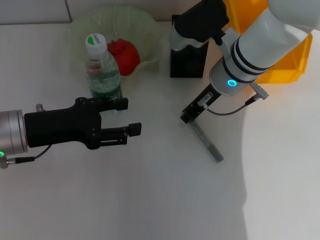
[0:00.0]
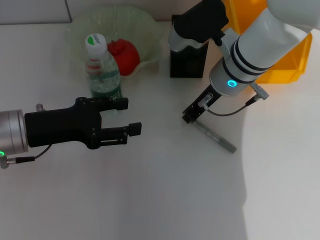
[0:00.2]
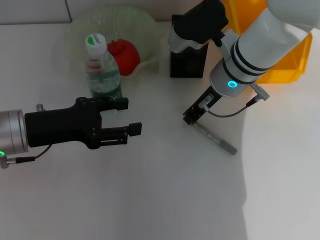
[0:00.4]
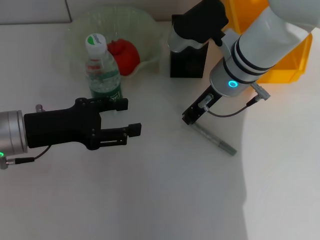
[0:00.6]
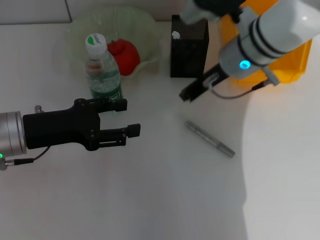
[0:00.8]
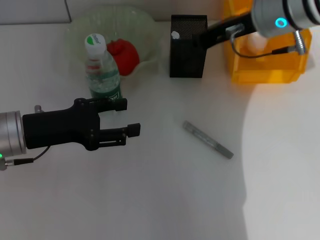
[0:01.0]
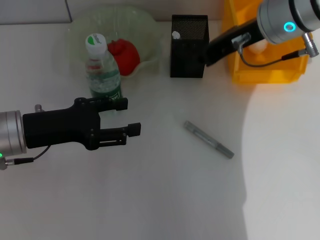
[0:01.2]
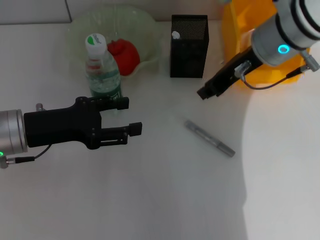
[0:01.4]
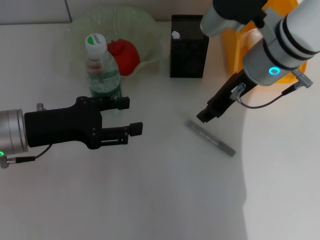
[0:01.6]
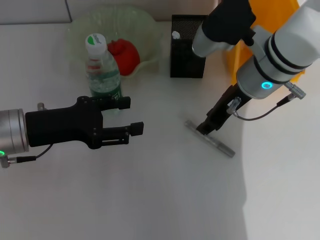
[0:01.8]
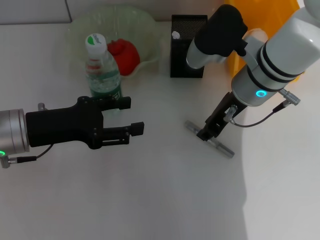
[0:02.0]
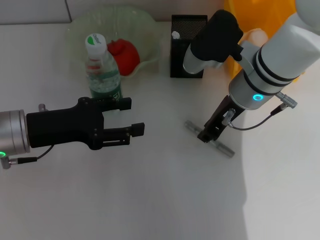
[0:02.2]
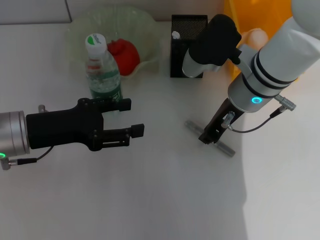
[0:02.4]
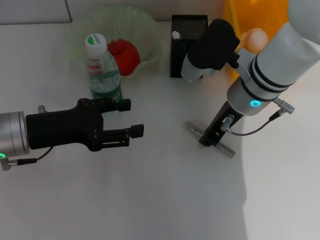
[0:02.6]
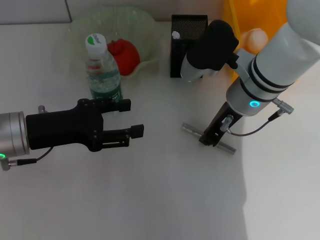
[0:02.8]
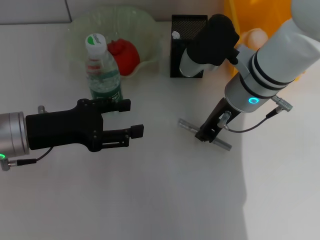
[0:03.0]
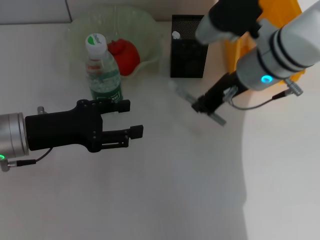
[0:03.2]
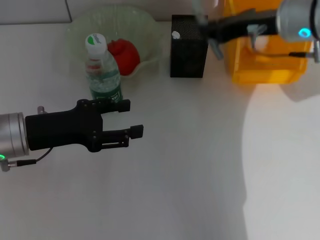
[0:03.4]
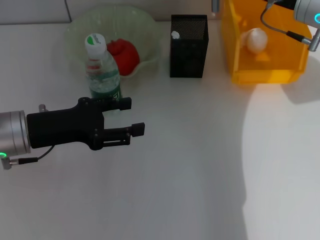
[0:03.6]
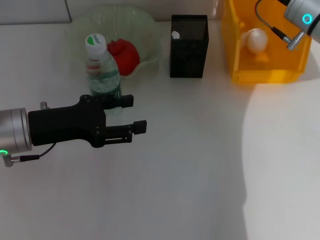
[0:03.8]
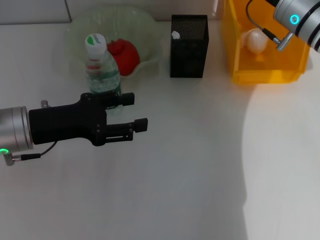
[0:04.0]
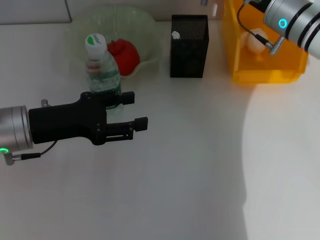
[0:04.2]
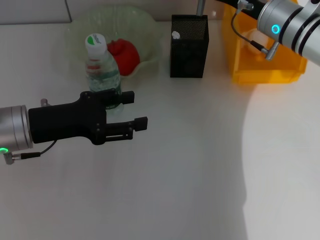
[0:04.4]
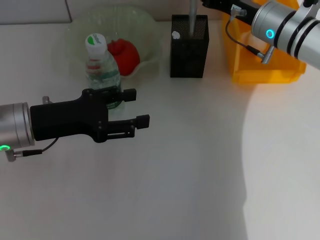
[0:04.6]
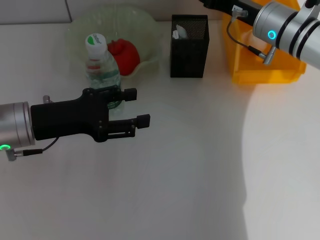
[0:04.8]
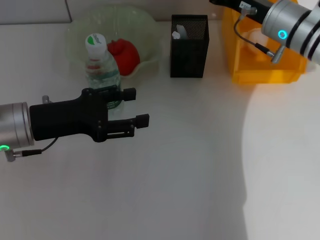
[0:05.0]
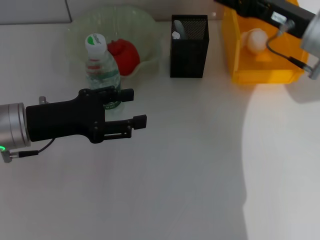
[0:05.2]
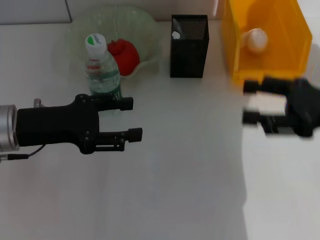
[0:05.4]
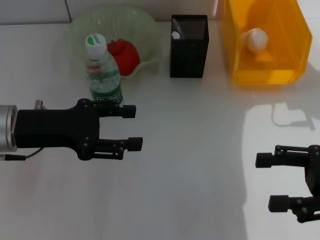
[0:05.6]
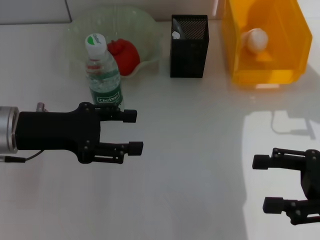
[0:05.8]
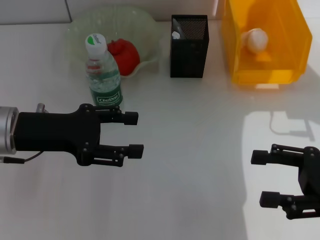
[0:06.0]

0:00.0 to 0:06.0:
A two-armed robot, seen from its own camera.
Step, 0:00.0 to 0:02.6: Grab the gray glue with the right hand.
Step, 0:03.0 to 0:04.6: Place the gray glue into the pen holder with the right hand.
0:01.6 to 0:03.0: There are only small adjustments of the grippers.
0:03.0 to 0:04.4: The right gripper shifts some 10 cm to the right and forward.
0:04.4 to 0:06.0: The right gripper heads backward and to the right, covering some 25 cm, and opens.
